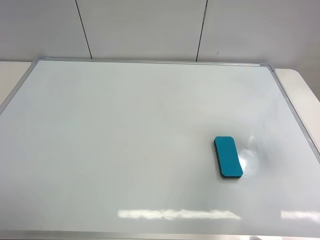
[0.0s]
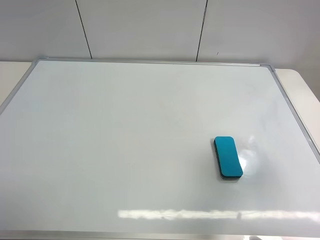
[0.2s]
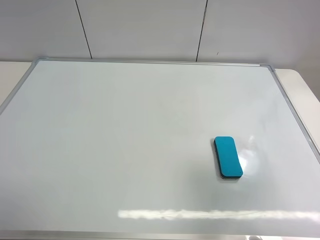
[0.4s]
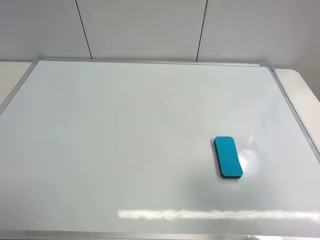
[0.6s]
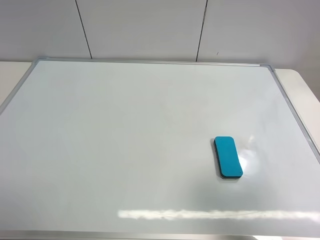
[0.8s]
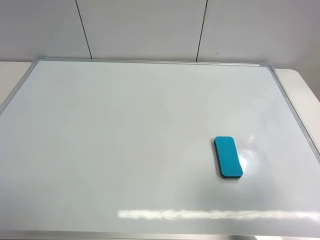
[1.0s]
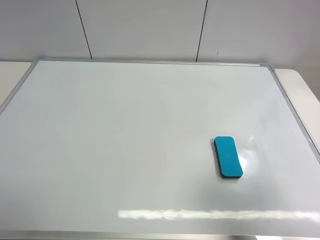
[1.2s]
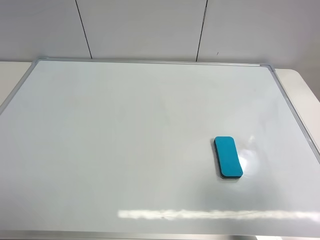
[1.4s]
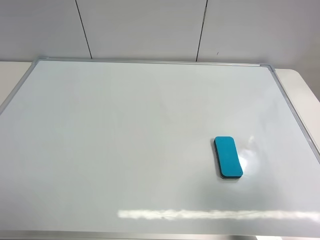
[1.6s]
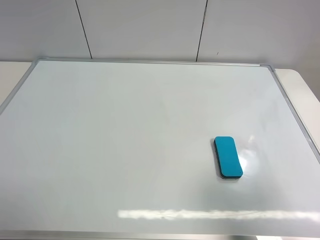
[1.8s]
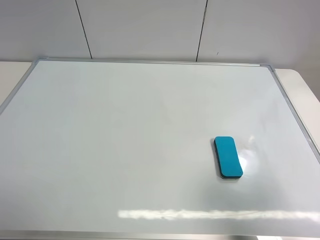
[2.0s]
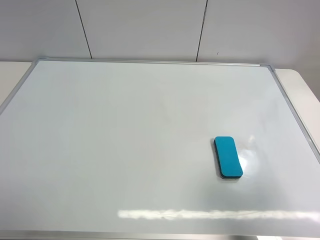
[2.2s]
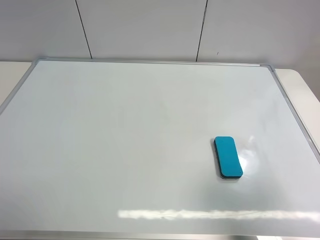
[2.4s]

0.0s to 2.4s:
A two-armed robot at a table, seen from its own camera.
Task of the whole recording: use the left gripper to place the eraser in the right, use the right gripper to pick up the eraser, wipe the notes on the whiteboard clean, and then put it down.
0.0s to 1.2s: The right gripper goes some 15 cm backward.
1.2s to 2.4s: Both grippers stay about where they are.

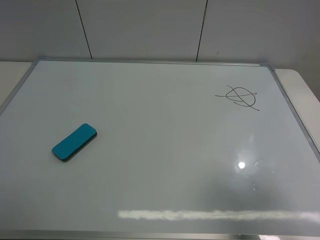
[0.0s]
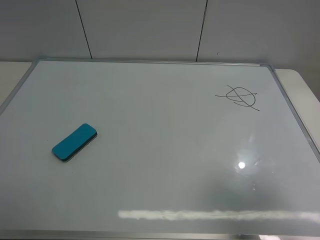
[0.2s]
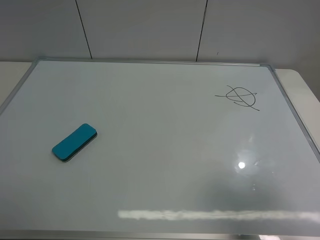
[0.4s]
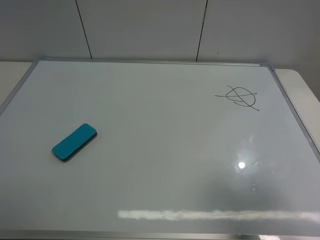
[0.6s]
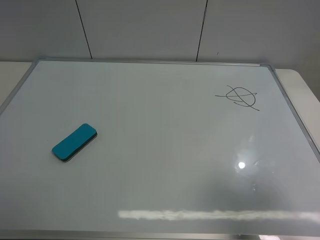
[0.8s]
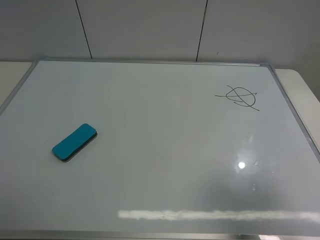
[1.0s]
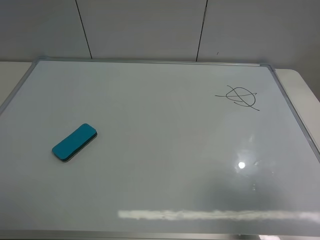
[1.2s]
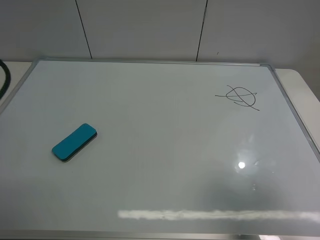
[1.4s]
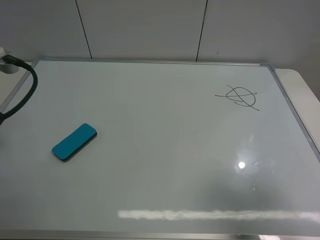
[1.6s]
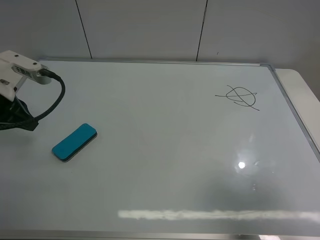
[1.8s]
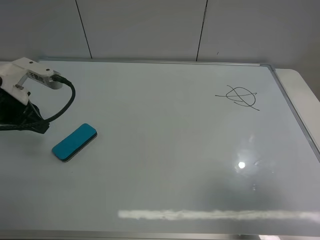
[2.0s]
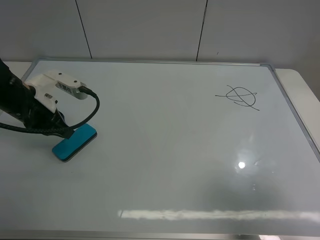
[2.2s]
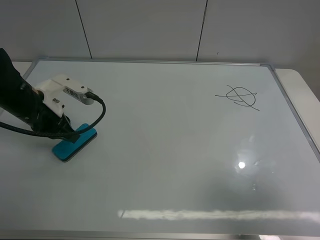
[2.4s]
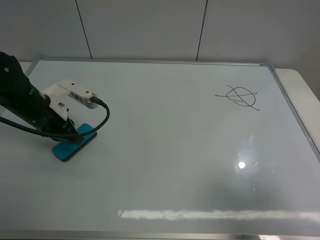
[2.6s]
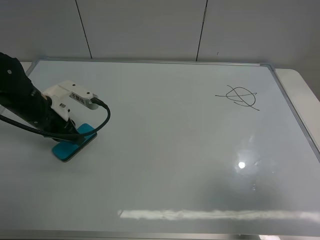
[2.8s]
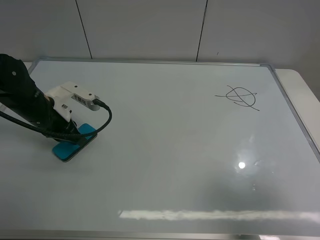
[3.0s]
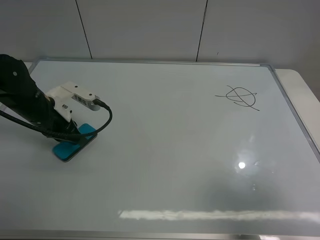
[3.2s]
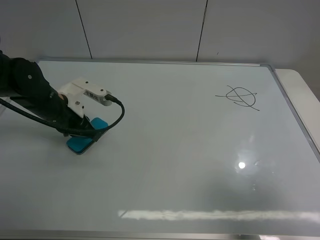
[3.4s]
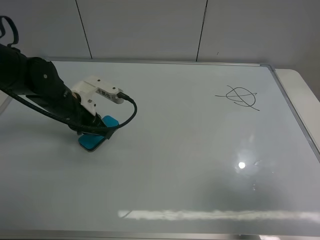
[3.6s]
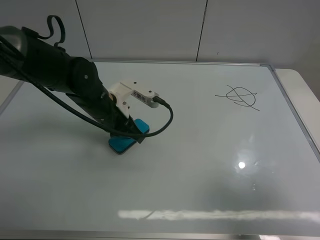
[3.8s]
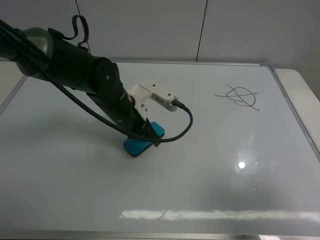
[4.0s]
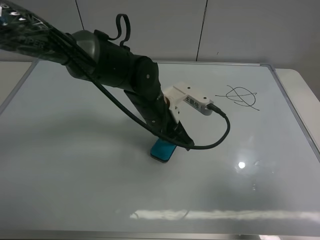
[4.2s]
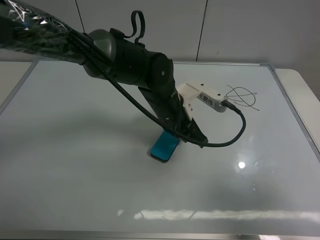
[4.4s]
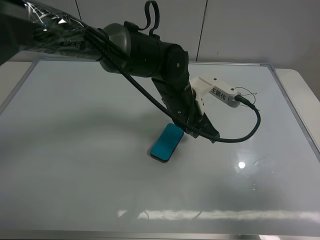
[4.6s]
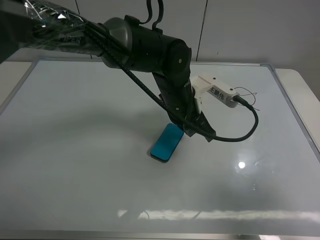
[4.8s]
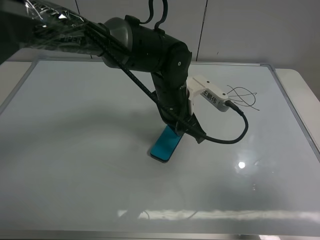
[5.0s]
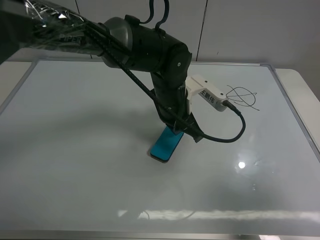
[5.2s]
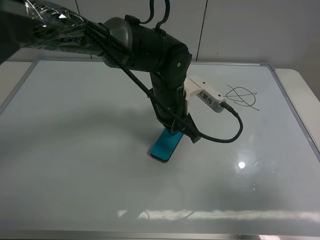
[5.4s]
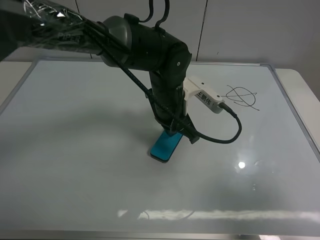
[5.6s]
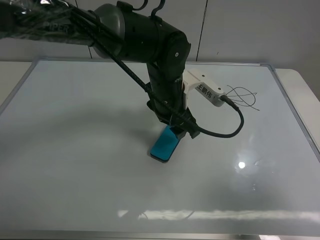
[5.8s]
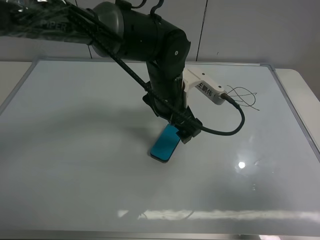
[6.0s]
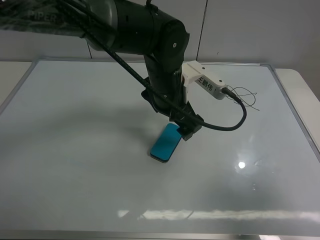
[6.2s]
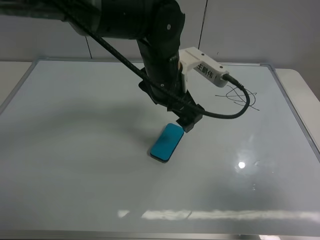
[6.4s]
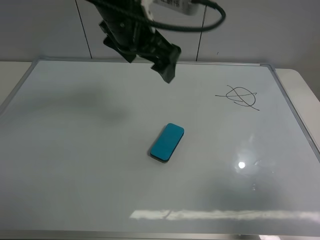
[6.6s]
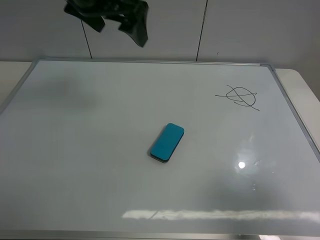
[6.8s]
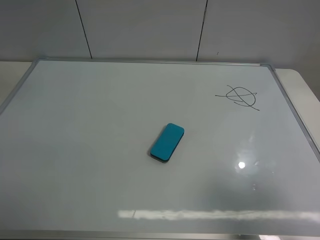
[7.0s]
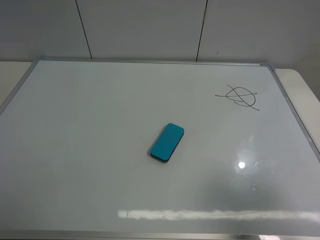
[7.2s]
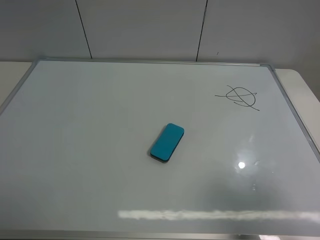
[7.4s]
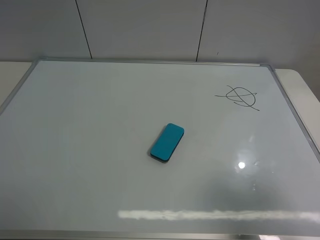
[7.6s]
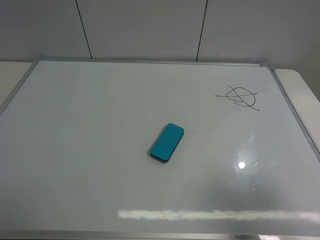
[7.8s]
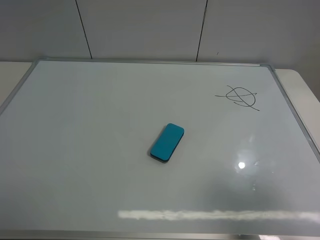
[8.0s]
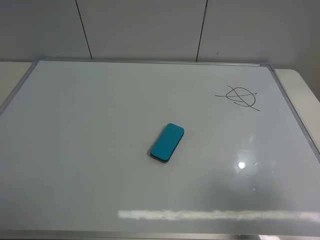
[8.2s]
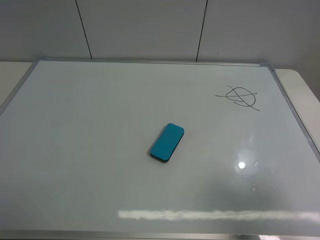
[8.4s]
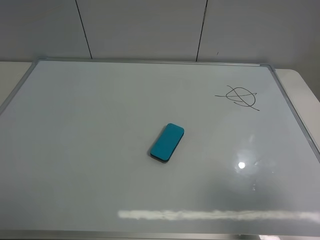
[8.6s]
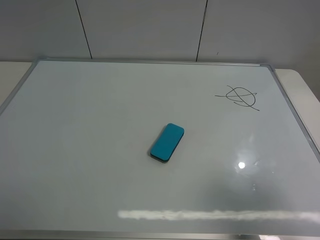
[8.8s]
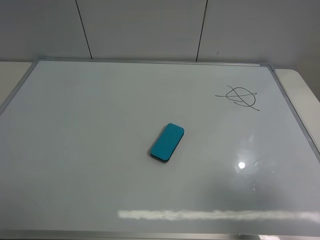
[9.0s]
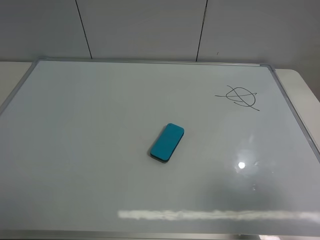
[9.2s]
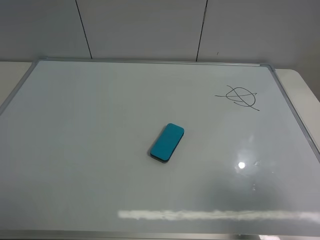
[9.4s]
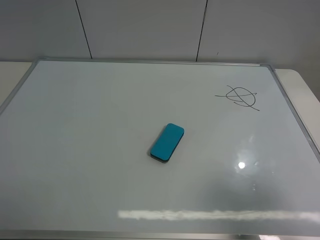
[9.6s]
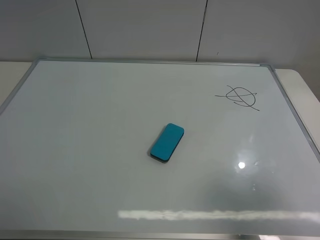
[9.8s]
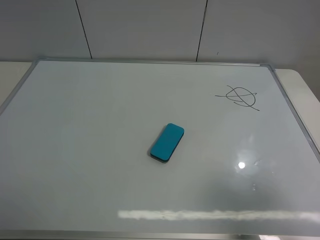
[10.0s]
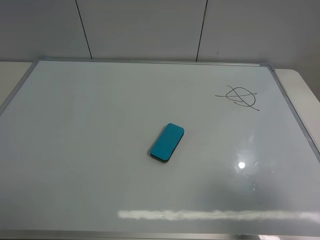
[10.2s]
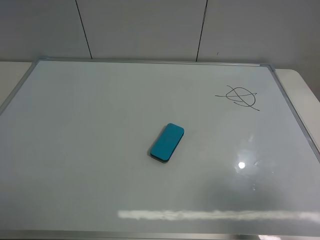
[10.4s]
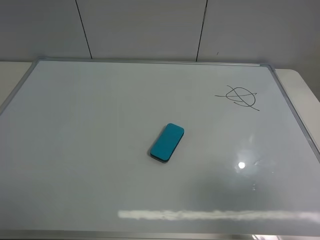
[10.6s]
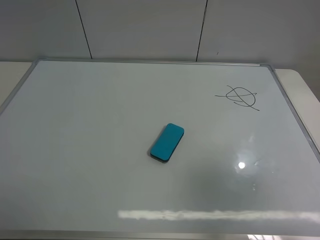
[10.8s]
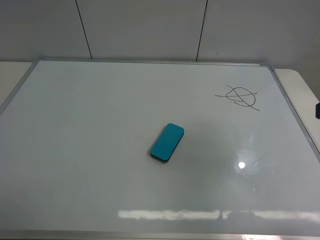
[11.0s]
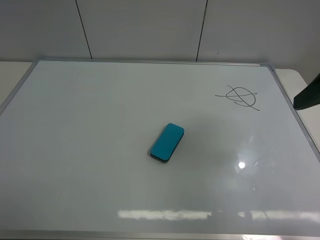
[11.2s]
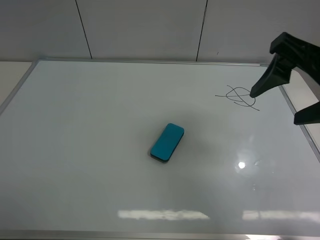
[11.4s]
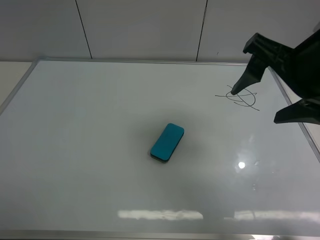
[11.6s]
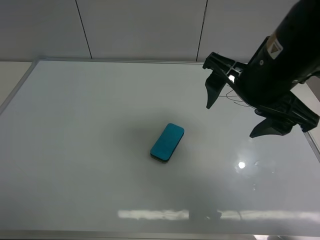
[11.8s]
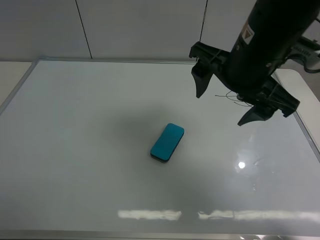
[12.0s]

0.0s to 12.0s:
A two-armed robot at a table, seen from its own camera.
Task of the whole recording: use the left gripper to place the eraser in the right, use the right gripper to pick up the eraser, wipe the notes on the whiteboard clean, and then put it down.
Step, 0.0s to 5.6s: Move the board eraser to the center of the whiteboard with left gripper.
0.0s to 1.6s: The left gripper goes some 20 cm forward, and closes.
1.6s to 3.0s: The left gripper is displaced downward, to the right and forward by approximately 15 cm.
3.0s to 4.4s: The left gripper heads to the right, covering some 25 cm.
4.4s to 6.0s: The left gripper opens up.
6.0s to 7.6s: The left gripper travels to the left, upward and backward by some 50 cm.
9.0s to 10.4s: The two grippers keep their place.
10.4s to 12.0s: The right gripper heads forward and to the left, covering some 30 cm.

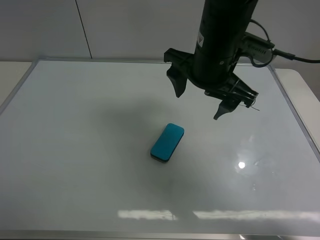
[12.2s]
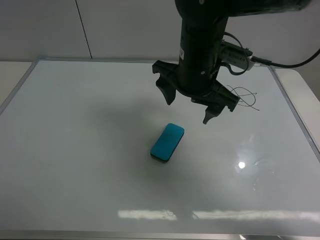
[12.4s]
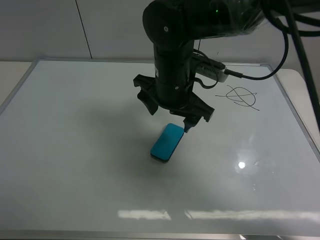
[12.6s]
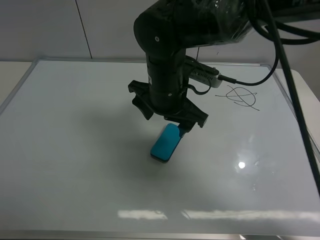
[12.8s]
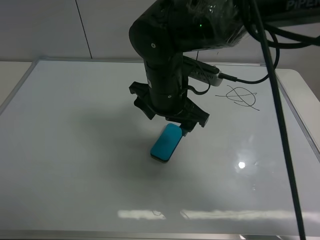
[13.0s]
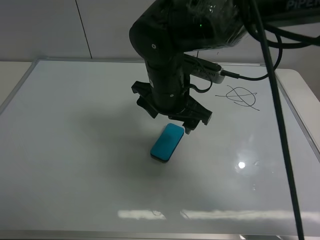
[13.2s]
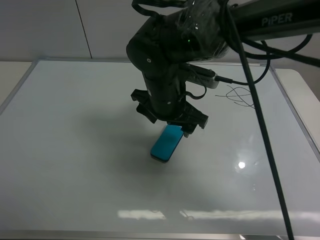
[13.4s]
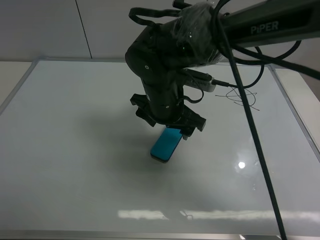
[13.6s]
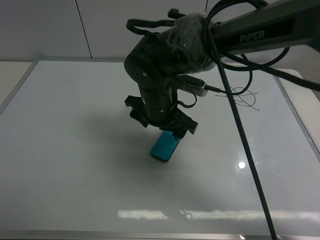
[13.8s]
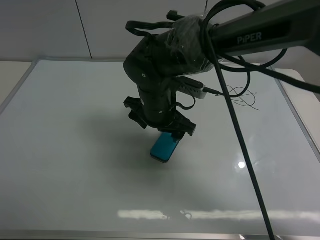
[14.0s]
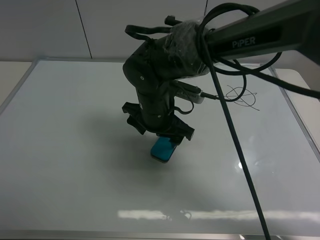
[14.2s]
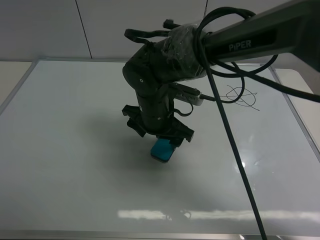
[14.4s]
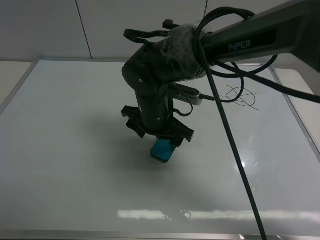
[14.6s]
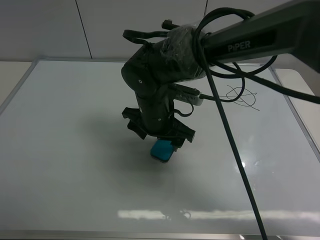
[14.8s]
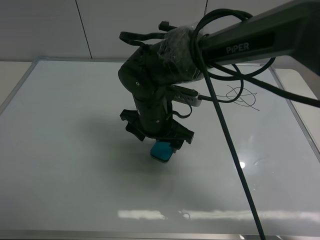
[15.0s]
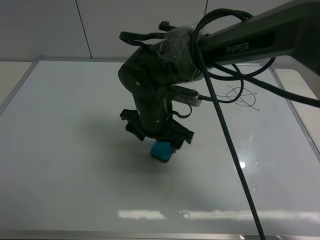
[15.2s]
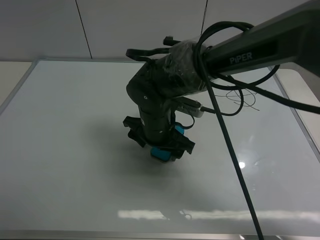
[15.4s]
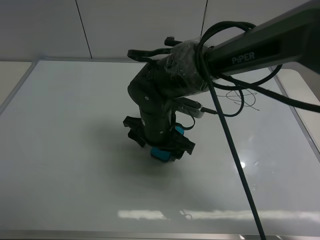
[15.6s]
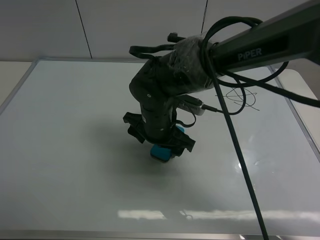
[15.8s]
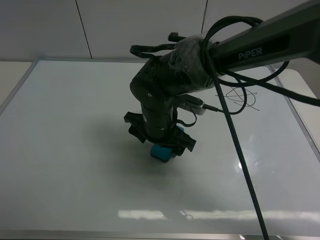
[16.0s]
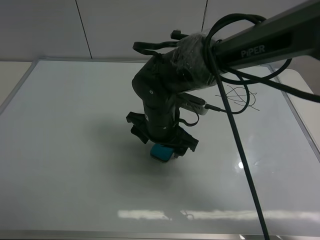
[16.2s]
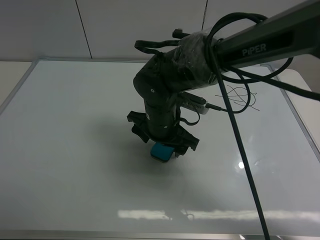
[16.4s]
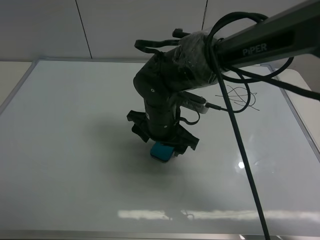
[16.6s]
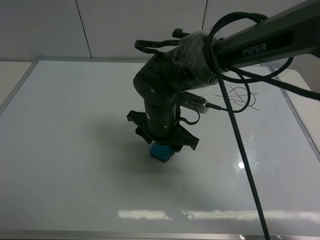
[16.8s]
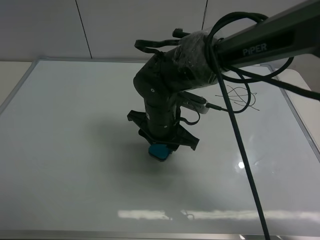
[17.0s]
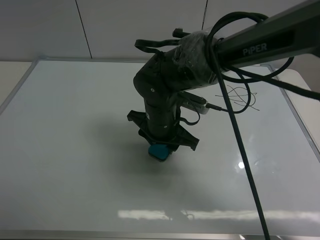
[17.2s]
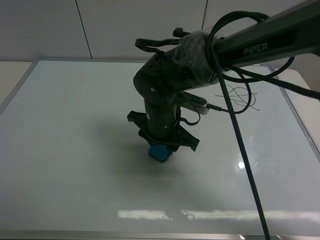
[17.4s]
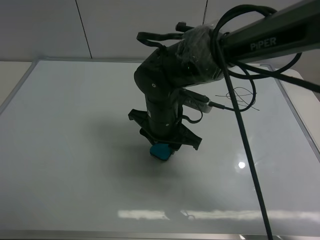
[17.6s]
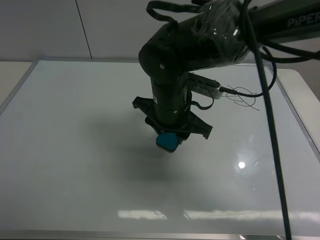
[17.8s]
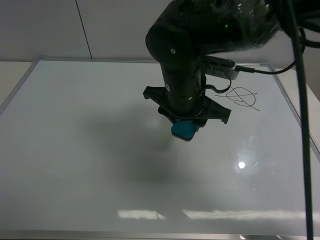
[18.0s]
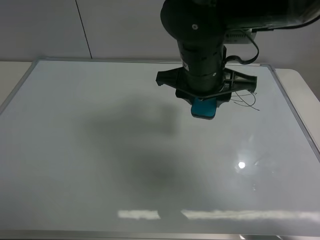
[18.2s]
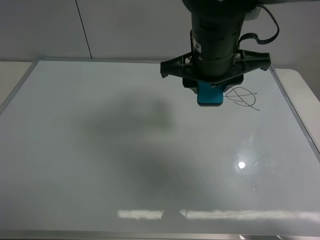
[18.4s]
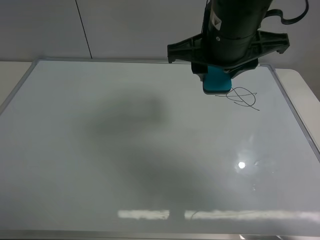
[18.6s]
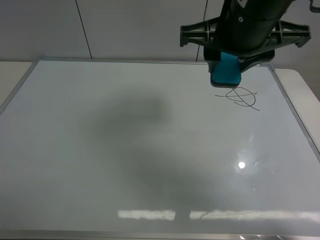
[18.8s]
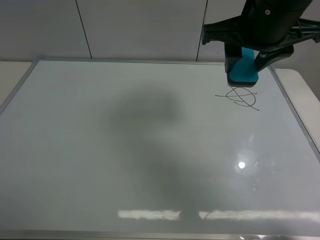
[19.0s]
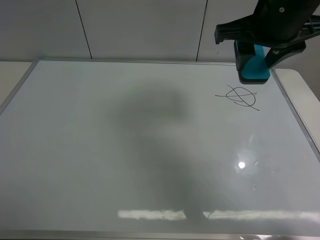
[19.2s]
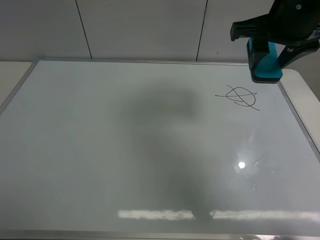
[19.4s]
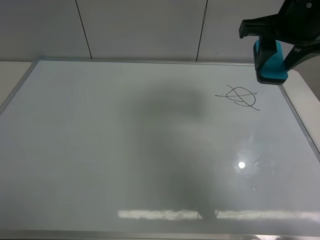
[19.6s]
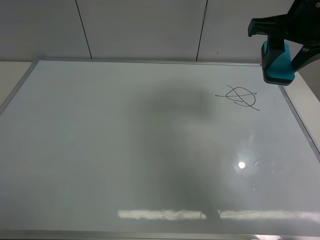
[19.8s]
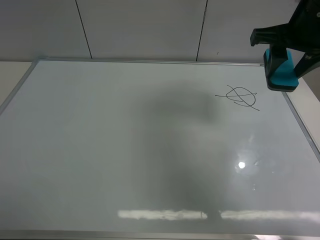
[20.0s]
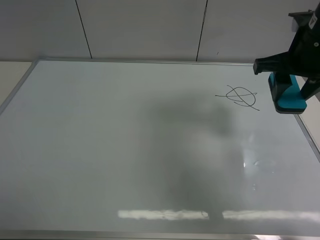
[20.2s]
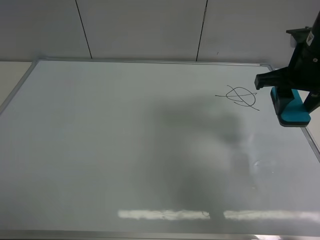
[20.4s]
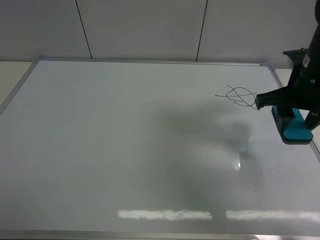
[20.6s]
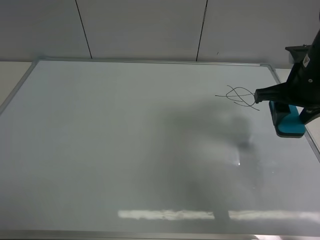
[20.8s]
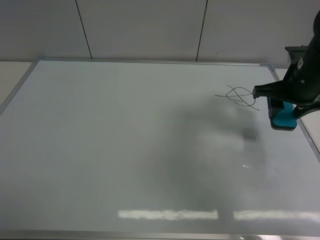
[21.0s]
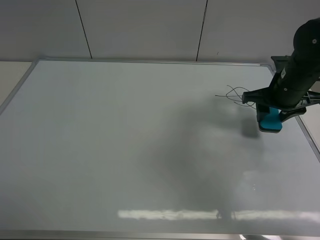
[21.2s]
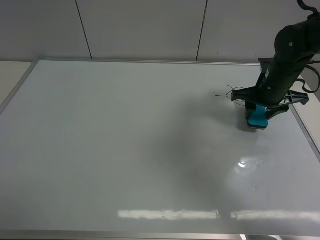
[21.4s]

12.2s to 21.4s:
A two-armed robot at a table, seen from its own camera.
Task of the whole recording: use the left gripper to place the eraser in the right, use the right gripper to pick up the eraser, wipe the notes on the whiteboard clean, and then put it down.
Step, 12.2s to 17.6s: Pick up the board eraser with right gripper.
12.2s to 13.8s: The right gripper is displaced downward and to the left by about 15 cm.
13.8s to 15.2s: The grippers stay close to where they were, moving slightly.
15.2s to 16.8s: The right gripper closes its fingers.
16.8s to 18.4s: The right gripper is displaced upward and to the right by approximately 15 cm.
18.4s to 19.8s: The right gripper heads to the right, covering roughly 15 cm.
19.8s to 21.4s: The right gripper moves downward, approximately 15 cm.
